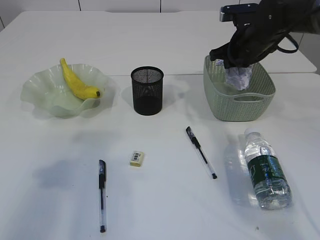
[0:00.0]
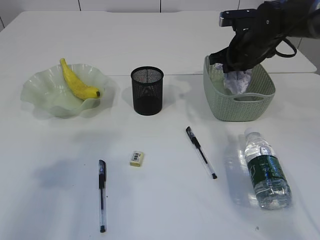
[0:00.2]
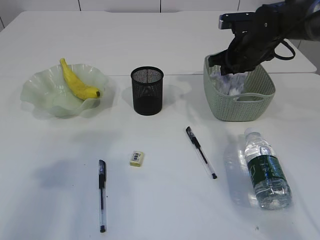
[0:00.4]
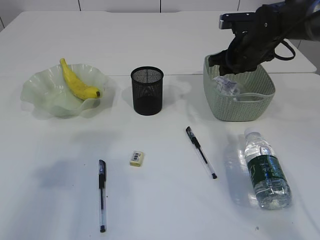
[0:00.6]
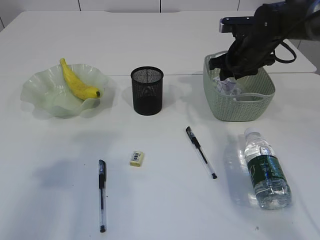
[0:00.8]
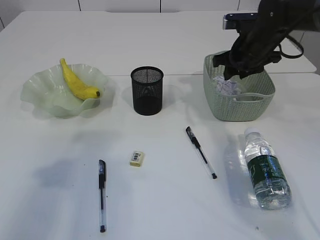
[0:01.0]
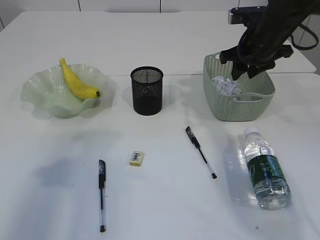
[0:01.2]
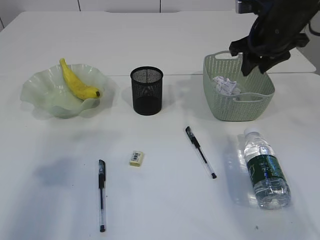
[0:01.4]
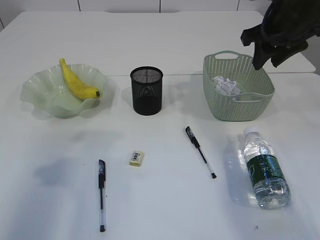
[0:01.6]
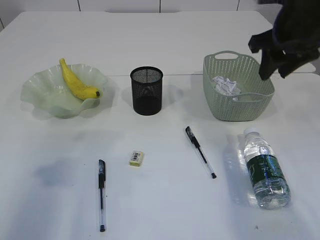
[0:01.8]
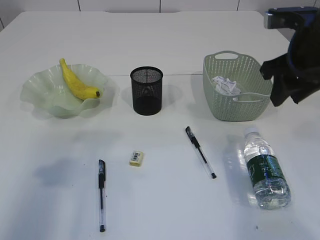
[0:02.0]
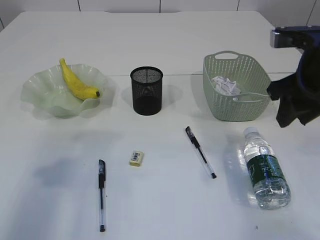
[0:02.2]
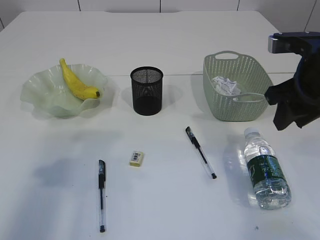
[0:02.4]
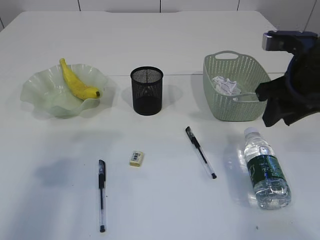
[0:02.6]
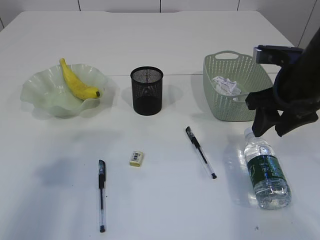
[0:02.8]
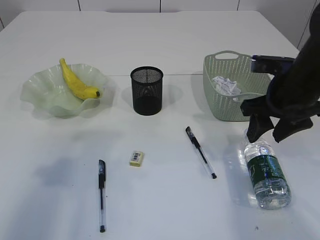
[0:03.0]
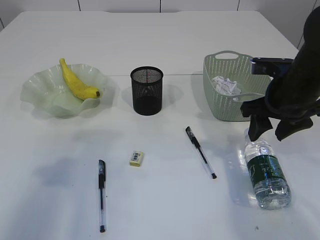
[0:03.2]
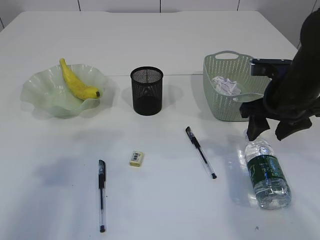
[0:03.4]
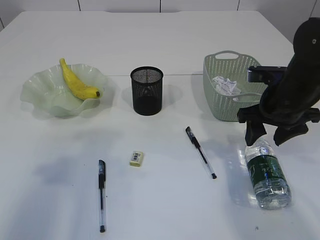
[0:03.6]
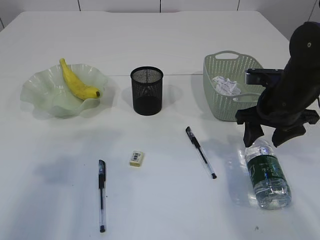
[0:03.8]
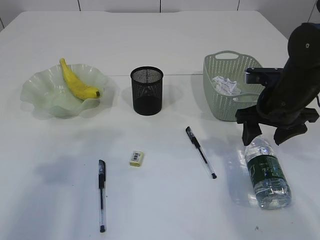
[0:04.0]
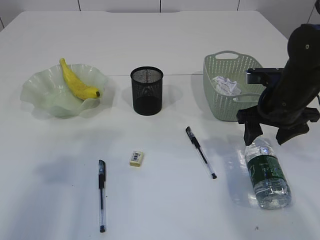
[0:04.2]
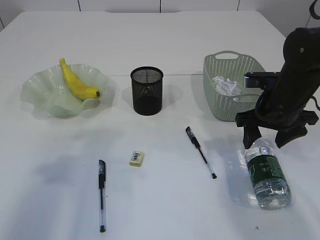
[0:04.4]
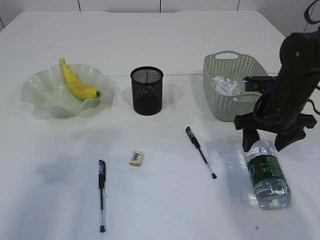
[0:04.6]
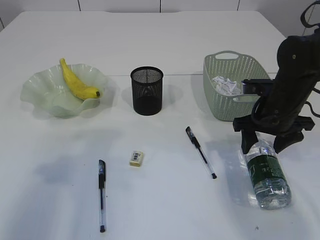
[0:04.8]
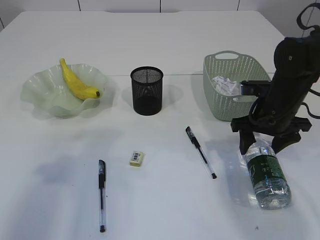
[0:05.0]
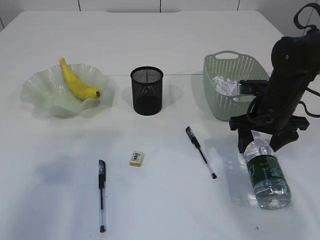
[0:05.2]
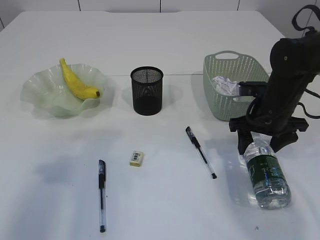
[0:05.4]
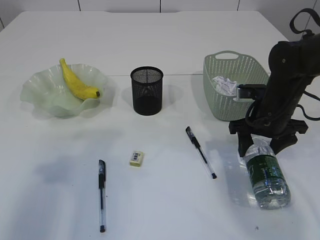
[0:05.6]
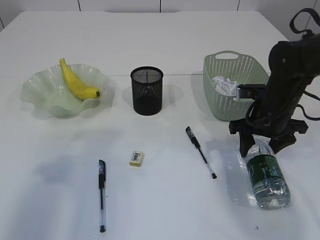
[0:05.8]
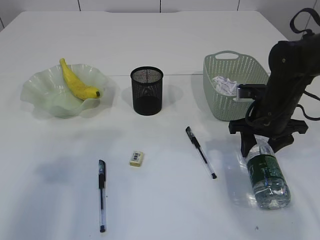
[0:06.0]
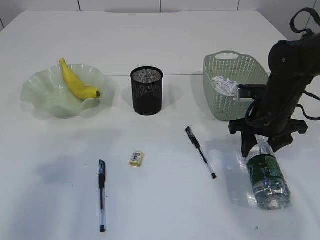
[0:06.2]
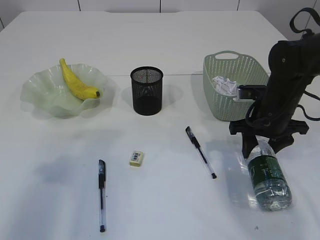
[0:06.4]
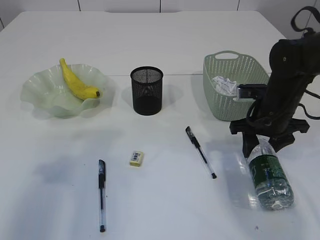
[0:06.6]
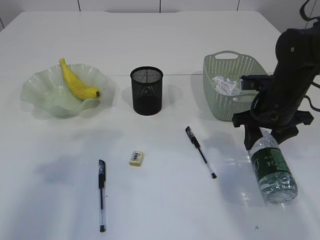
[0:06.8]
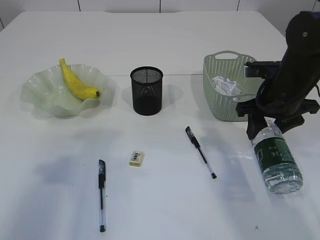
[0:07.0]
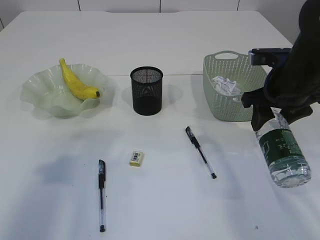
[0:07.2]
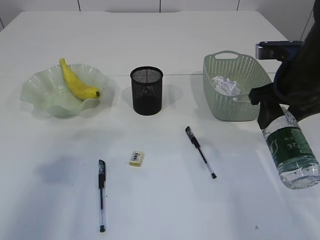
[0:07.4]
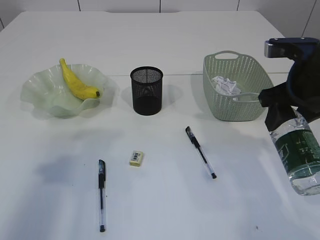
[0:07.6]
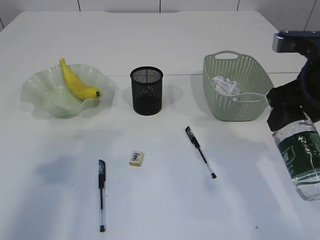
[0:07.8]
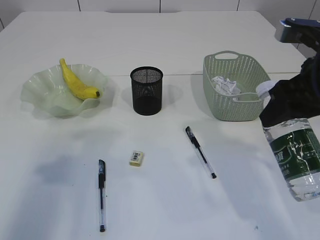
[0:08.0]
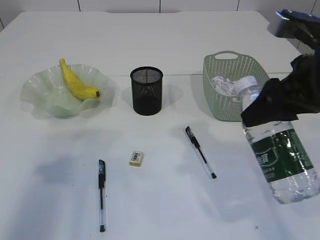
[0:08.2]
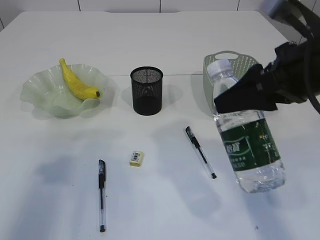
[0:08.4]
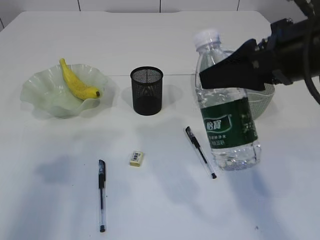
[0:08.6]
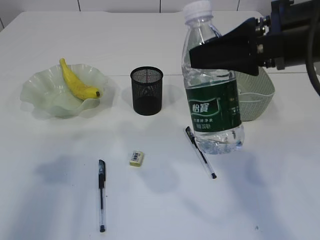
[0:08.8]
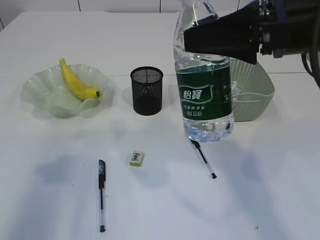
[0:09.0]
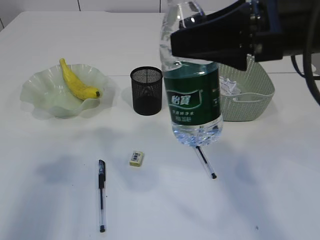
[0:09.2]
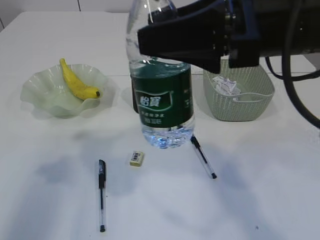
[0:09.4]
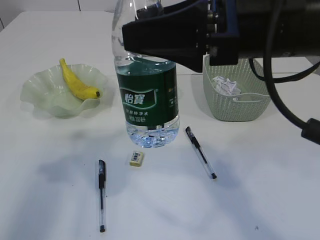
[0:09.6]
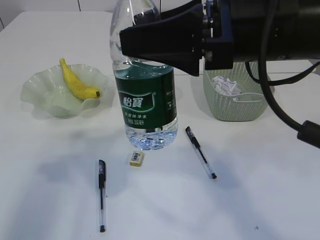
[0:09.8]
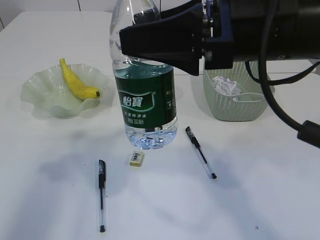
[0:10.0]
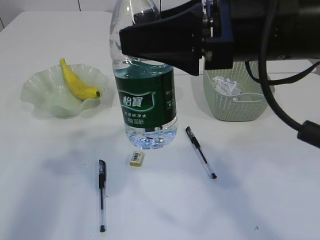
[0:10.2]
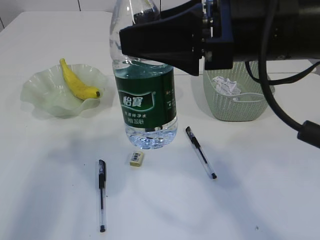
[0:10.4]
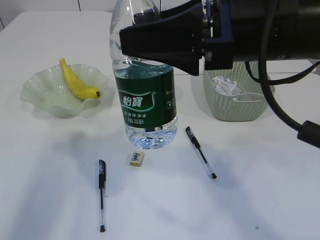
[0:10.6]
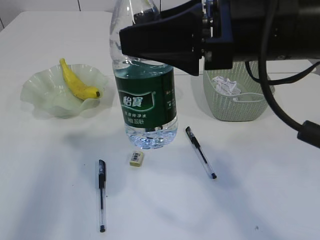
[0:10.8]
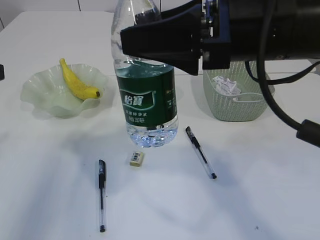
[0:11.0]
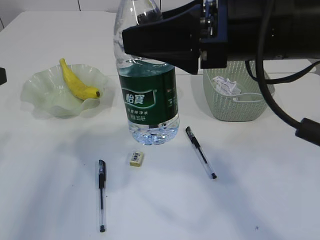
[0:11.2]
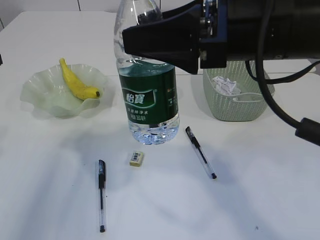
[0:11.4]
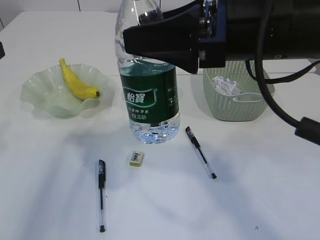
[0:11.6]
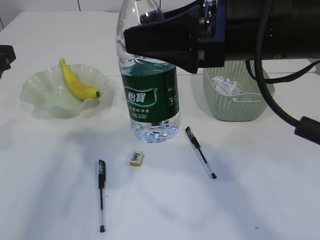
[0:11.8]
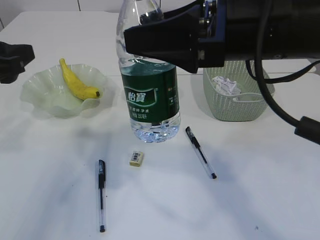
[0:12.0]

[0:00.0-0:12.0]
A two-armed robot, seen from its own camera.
Step, 0:02.0 to 0:07.4: Pick up the bottle with the right arm.
0:00.0 to 0:01.6: The right gripper heads upward and backward, covering some 10 cm, and opens up.
0:01.6 to 0:03.0: The right gripper heads downward and backward, covering roughly 10 cm.
0:03.0 to 0:04.4: The right gripper moves downward, approximately 5 cm.
0:04.4 to 0:06.0: There are only small adjustments of the grippers.
0:06.0 to 0:07.6: The right gripper goes about 15 cm upward and backward.
0:07.6 to 0:09.0: The right gripper is displaced upward, to the left and backward by about 15 cm.
0:09.0 to 0:10.4: The right gripper goes about 5 cm to the left.
0:10.4 to 0:12.0: The left gripper moves some 10 cm.

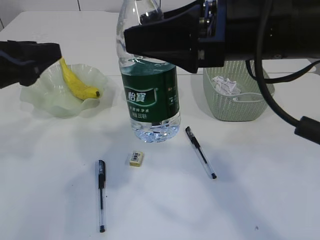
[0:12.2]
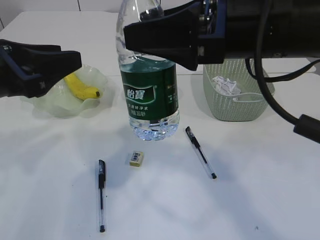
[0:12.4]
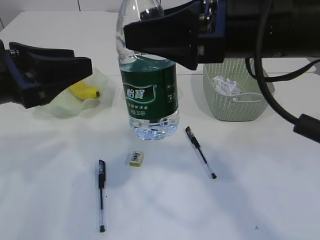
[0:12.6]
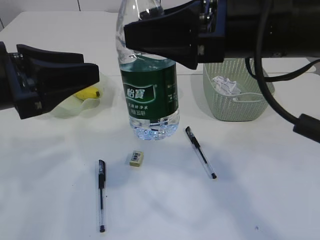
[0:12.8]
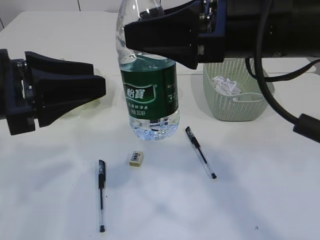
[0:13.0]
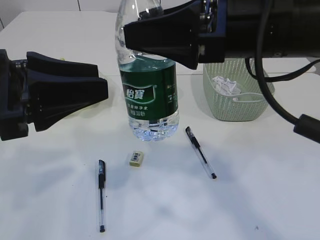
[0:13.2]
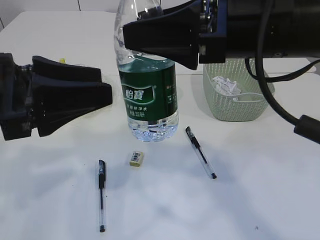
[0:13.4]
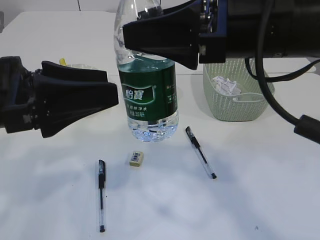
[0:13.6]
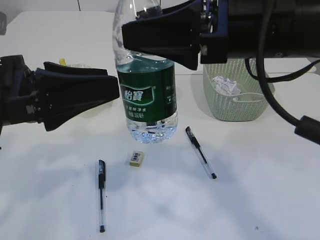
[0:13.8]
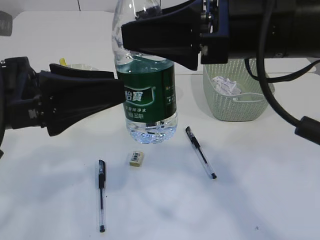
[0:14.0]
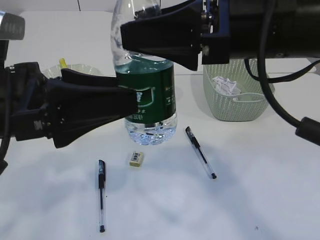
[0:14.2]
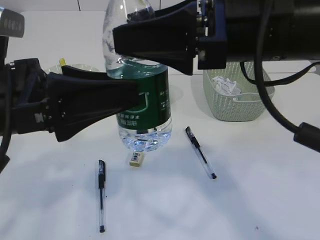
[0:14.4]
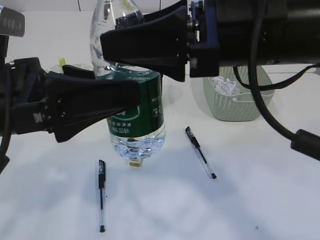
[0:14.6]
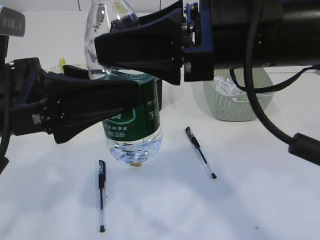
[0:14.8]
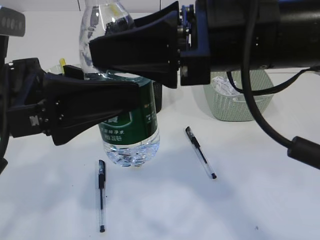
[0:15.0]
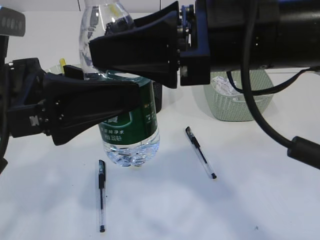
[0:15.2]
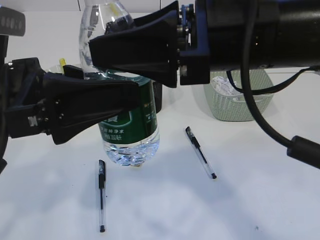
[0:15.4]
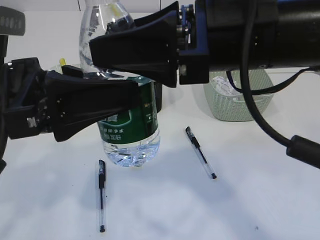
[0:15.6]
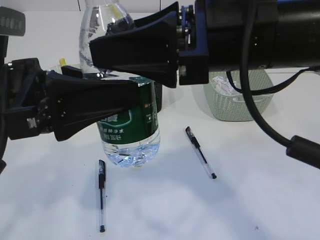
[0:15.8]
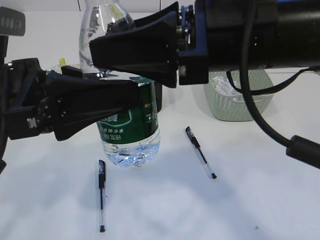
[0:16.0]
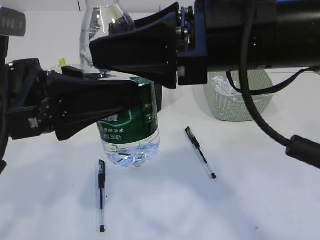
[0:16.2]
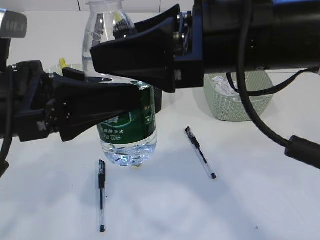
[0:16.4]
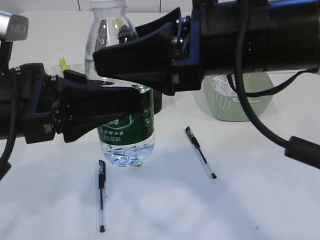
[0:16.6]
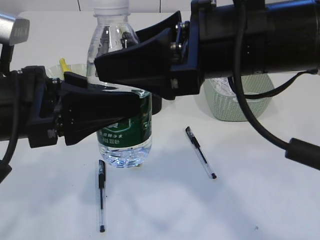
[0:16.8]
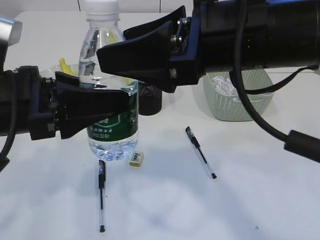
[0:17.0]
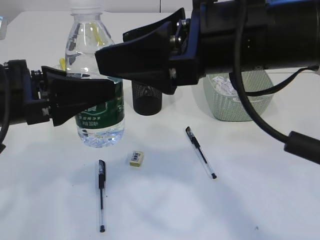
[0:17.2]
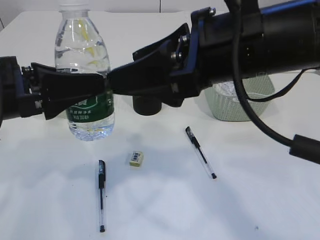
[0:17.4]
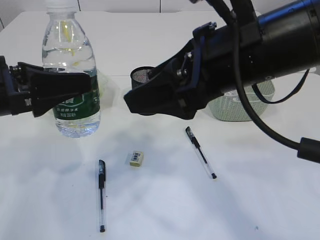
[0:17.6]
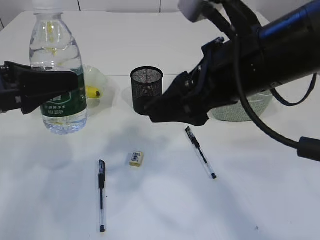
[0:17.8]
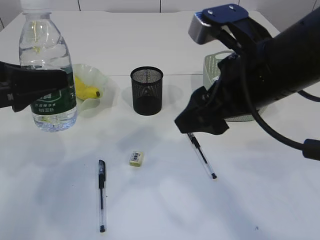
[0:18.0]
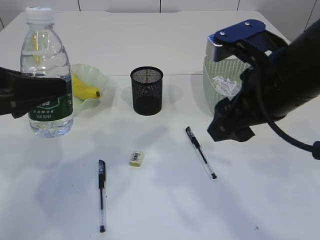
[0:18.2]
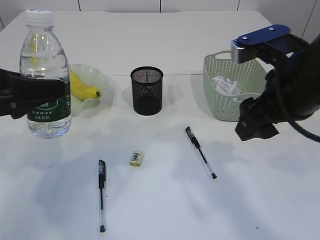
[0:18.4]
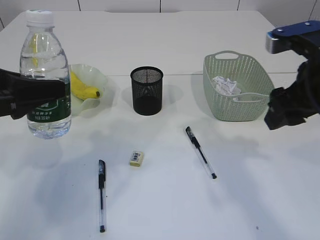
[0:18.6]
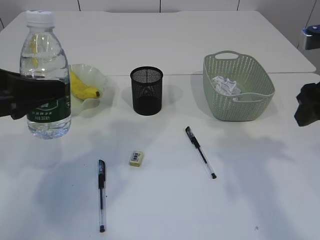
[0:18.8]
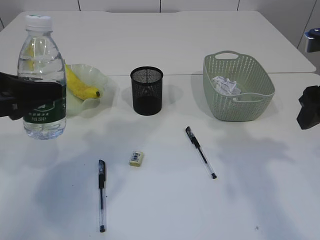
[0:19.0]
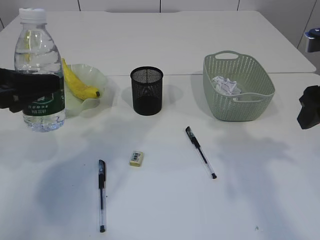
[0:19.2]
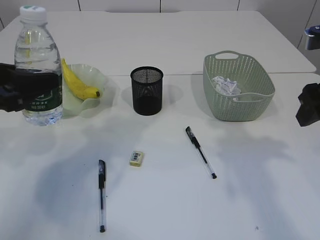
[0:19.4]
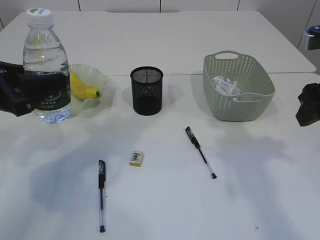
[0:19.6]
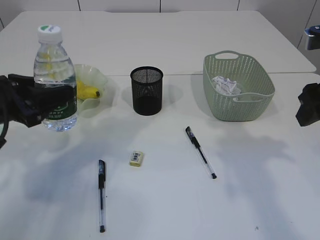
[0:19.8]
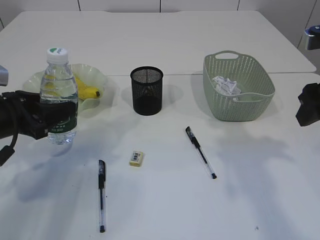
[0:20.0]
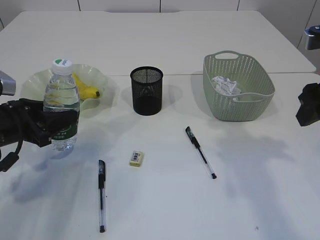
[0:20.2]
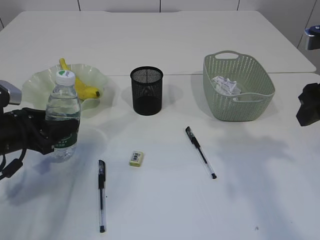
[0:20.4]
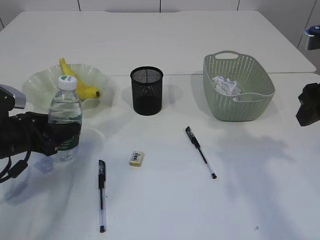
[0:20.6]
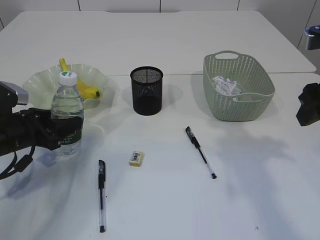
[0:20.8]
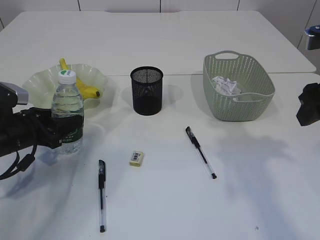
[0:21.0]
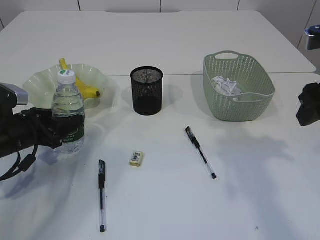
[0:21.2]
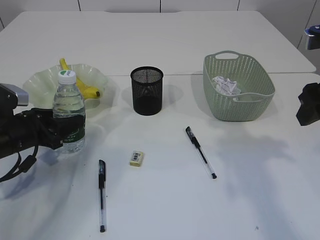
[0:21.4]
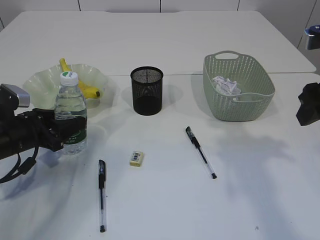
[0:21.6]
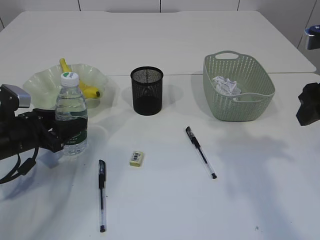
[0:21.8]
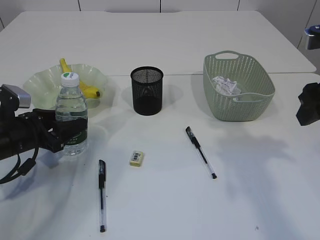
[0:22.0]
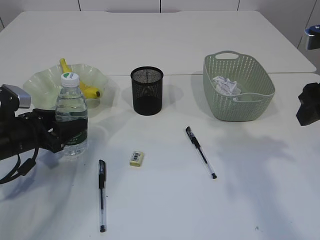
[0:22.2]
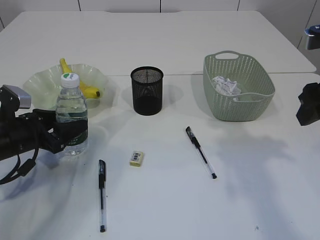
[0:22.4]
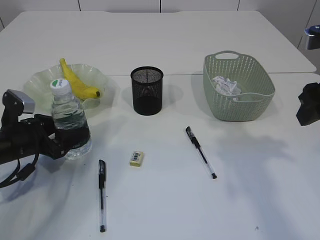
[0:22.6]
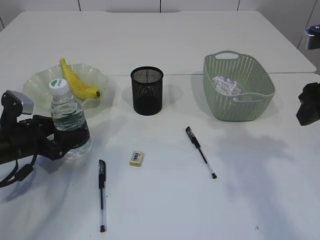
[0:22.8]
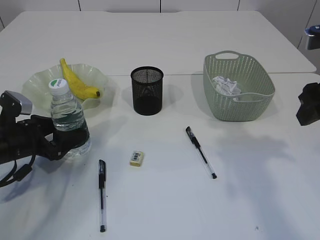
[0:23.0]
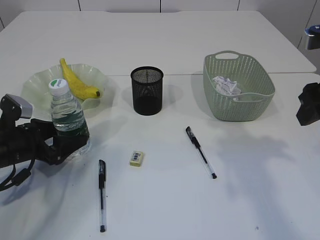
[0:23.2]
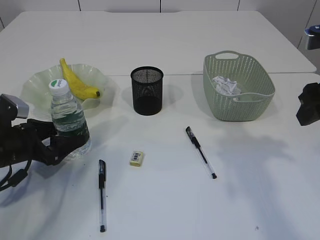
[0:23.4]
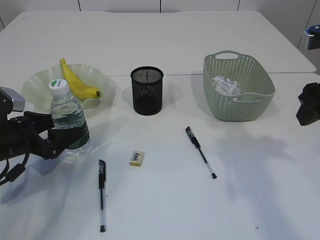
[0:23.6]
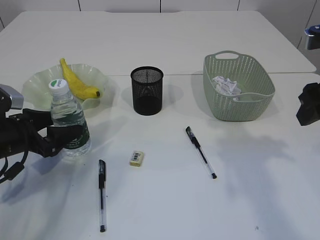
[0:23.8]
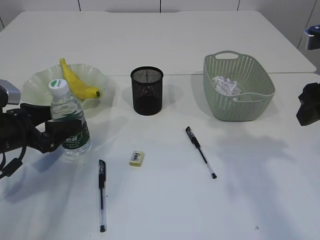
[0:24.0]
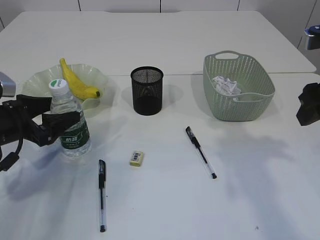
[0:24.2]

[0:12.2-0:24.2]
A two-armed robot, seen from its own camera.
Step, 0:12.2 to 0:17.4: transfer the bottle to the left arm.
0:12.2 to 0:13.8: The left gripper changes place by approximately 5 cm, and opens its fingers.
0:15.2 to 0:16.6: The left gripper closes its fingers.
0:16.6 to 0:18.2: The right gripper heads to the right and downward, covering about 10 cm, while the left gripper goes roughly 10 cm to the left.
0:18.2 to 0:19.8: The left gripper is displaced downward by roughly 5 cm. Meanwhile the right gripper heads to the right, covering some 10 cm.
0:19.8 to 0:21.2: The left gripper travels downward by roughly 10 cm.
0:21.2 to 0:22.6: Neither gripper changes place.
0:22.6 to 0:24.2: The grippers stay close to where they were, moving slightly.
